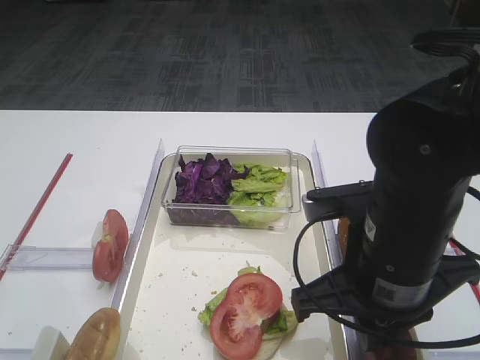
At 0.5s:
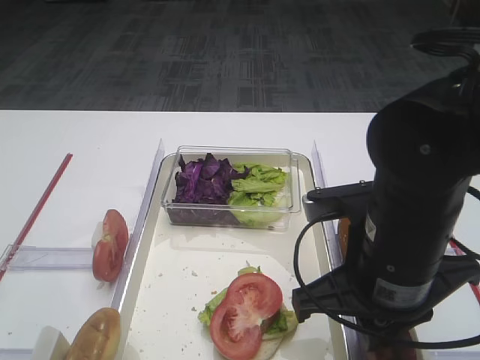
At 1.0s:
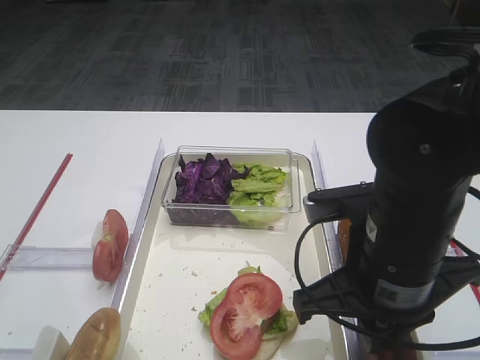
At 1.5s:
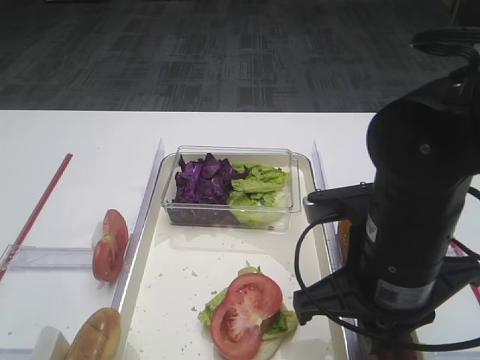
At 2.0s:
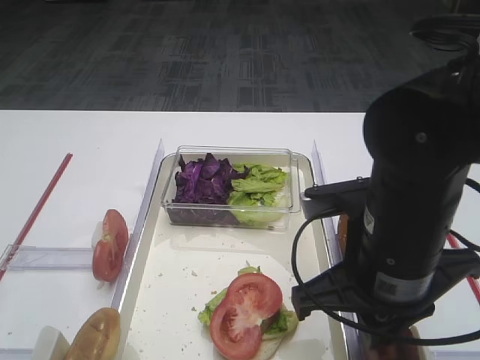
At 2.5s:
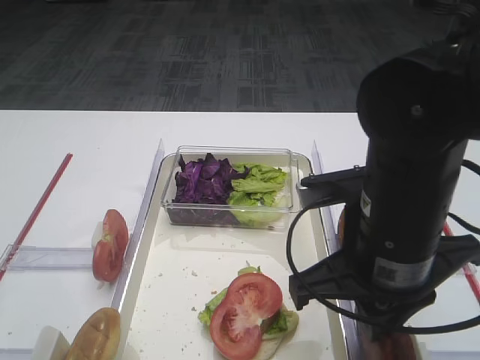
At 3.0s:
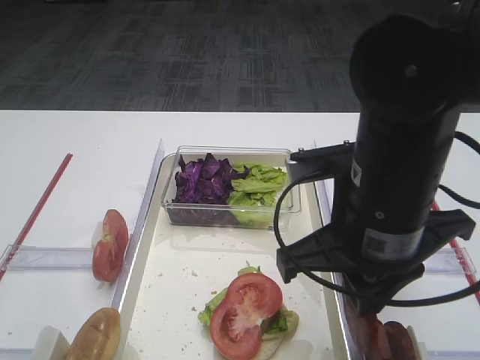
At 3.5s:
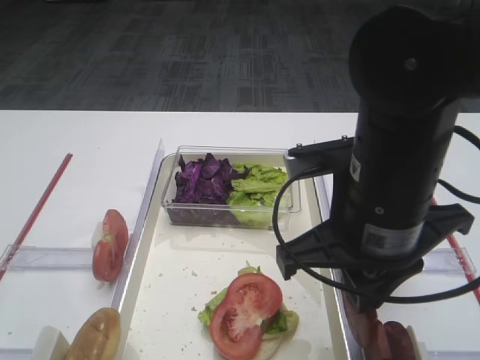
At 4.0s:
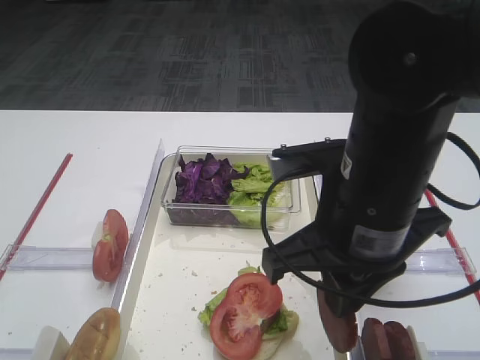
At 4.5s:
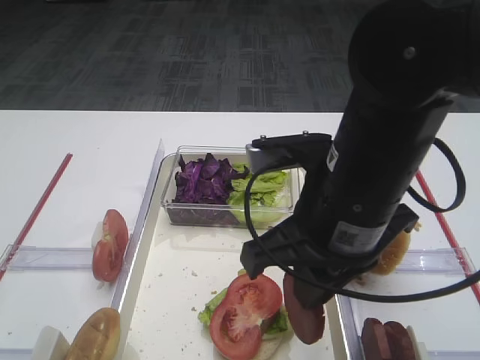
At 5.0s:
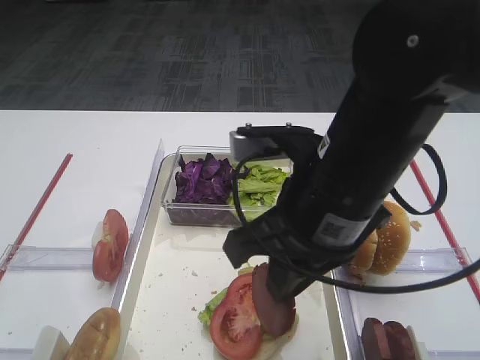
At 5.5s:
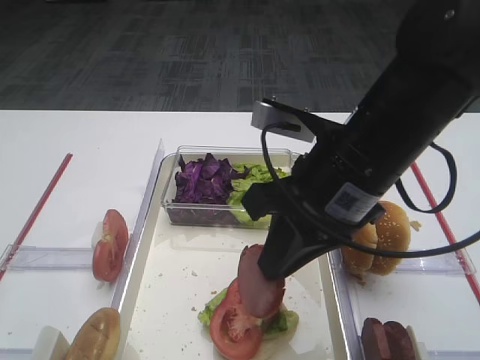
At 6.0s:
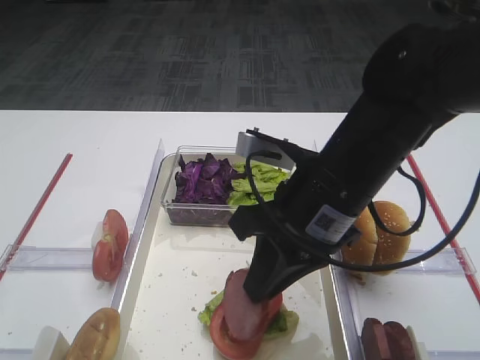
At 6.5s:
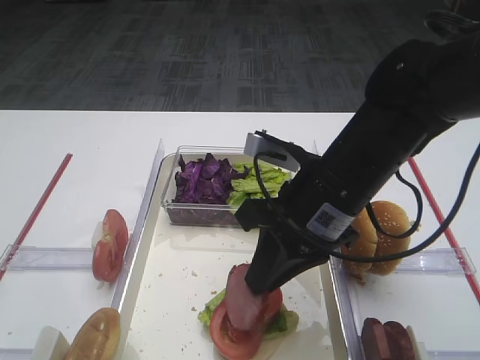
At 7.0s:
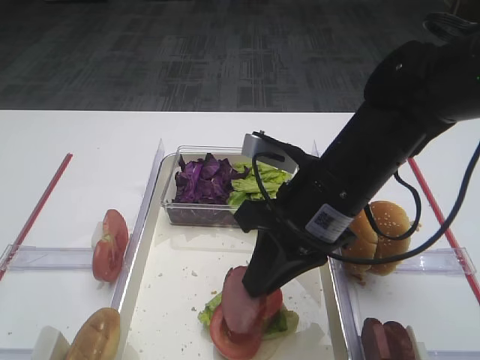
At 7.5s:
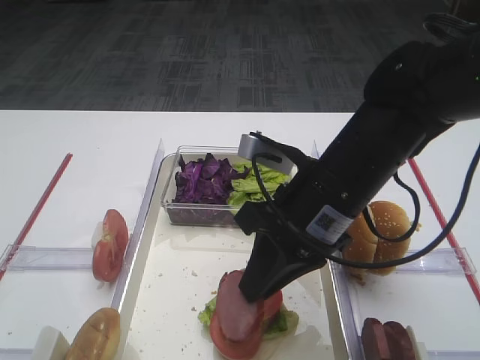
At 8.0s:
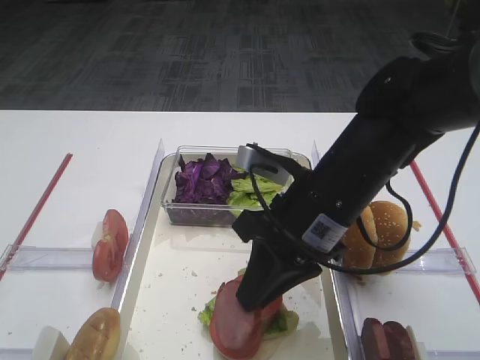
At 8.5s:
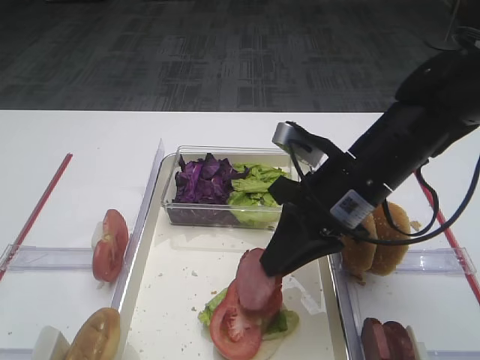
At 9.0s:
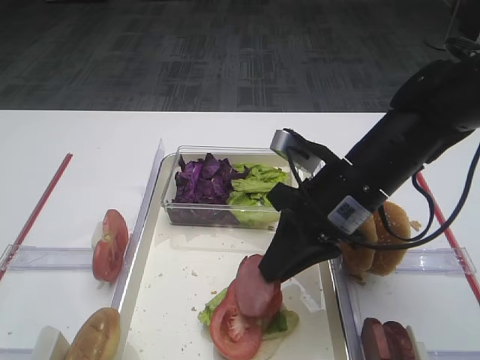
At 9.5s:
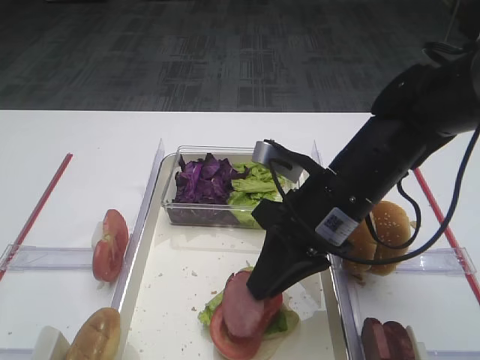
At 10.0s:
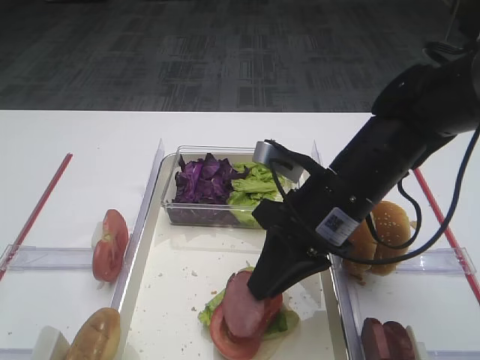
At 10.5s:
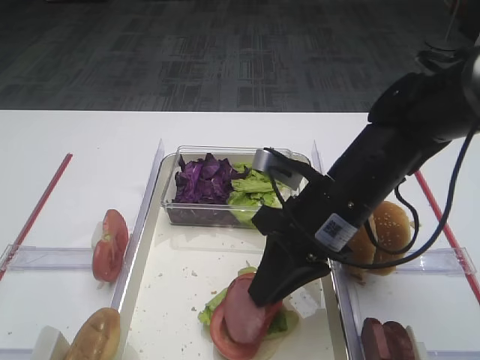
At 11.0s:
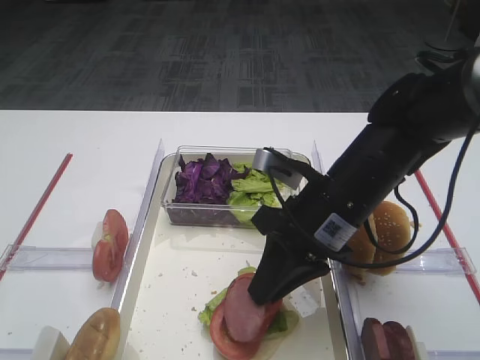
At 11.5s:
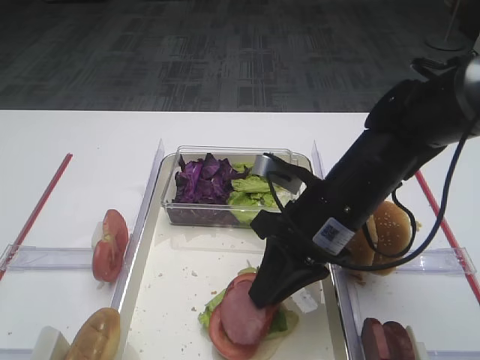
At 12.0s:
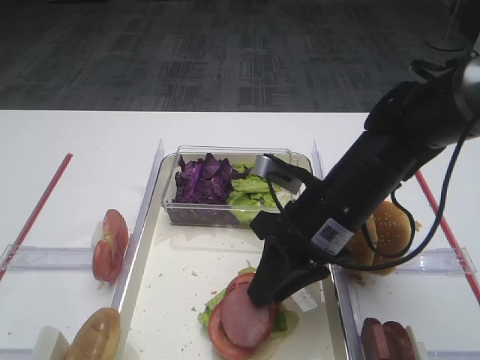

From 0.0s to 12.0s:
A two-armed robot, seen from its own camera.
Step, from 0.0s to 2.5s: Pick up the cutlet with the right gripper.
From 0.0s to 2.0s: Both grippers stay put.
From 2.0s to 4.0s: The grippers move only a little.
From 6.0s to 8.0s: There are only small adjustments of the grippers.
From 8.0s to 12.0s: The grippers make only small movements.

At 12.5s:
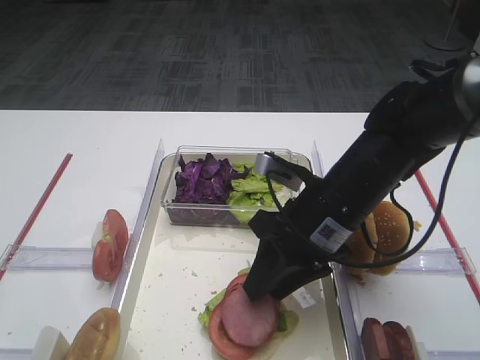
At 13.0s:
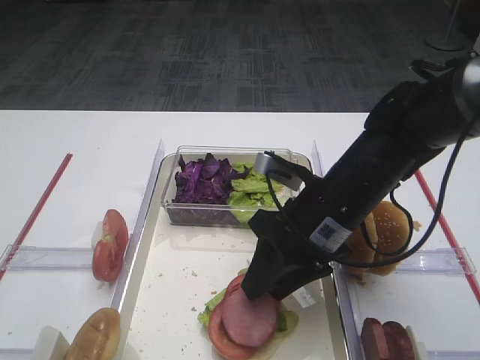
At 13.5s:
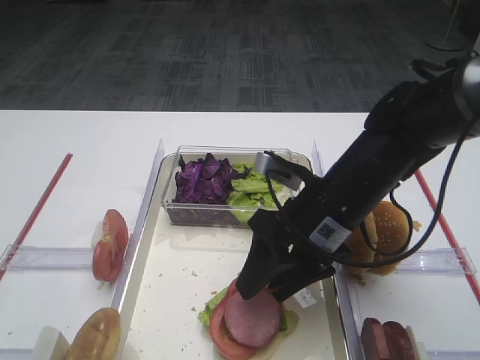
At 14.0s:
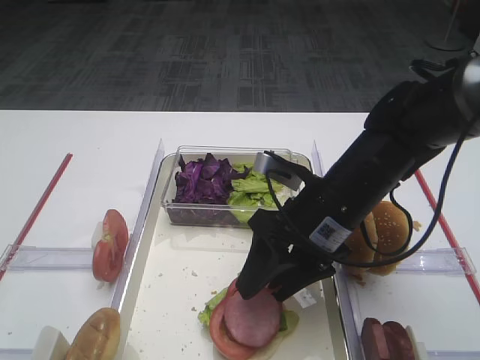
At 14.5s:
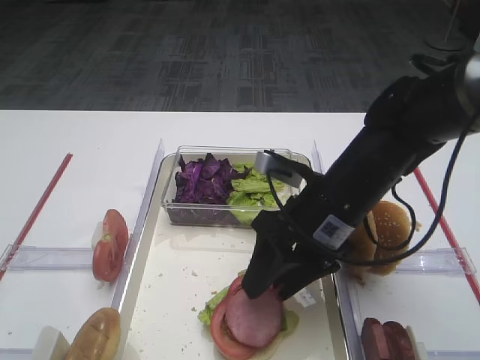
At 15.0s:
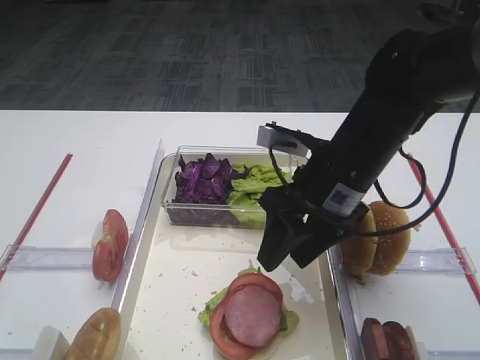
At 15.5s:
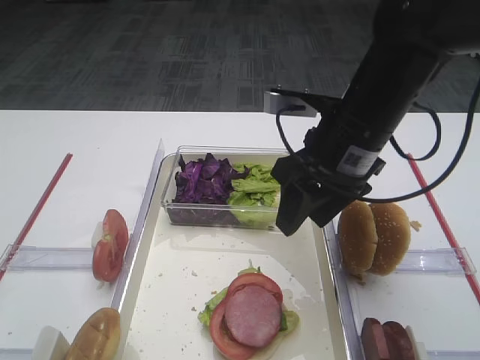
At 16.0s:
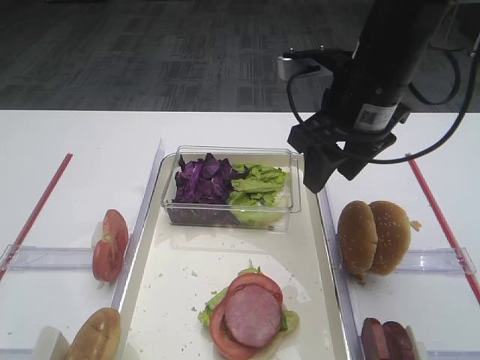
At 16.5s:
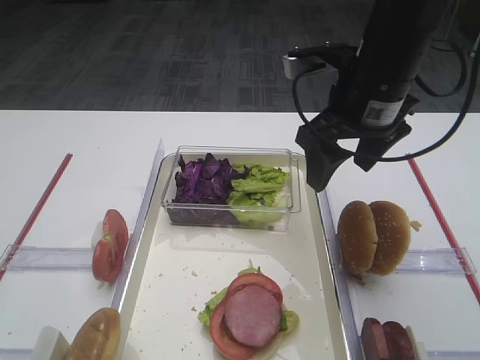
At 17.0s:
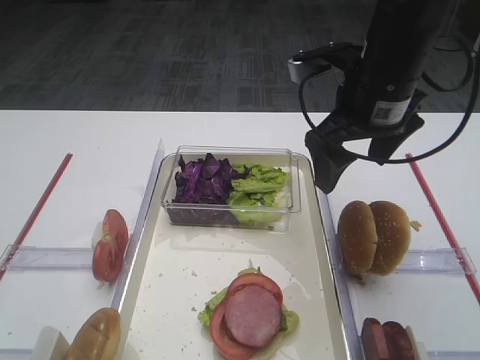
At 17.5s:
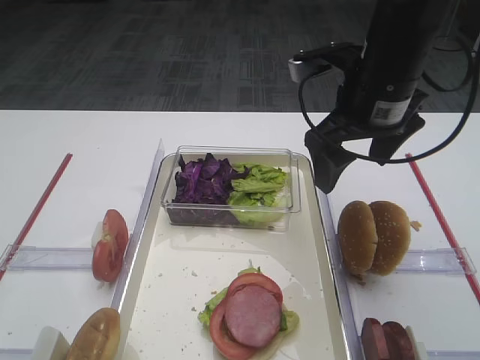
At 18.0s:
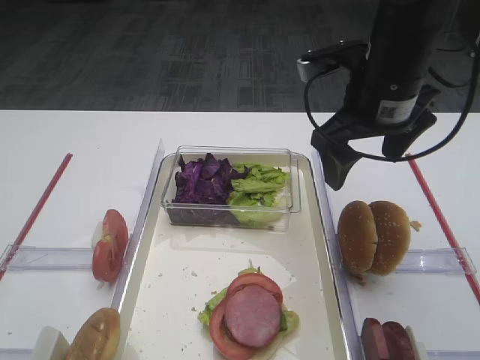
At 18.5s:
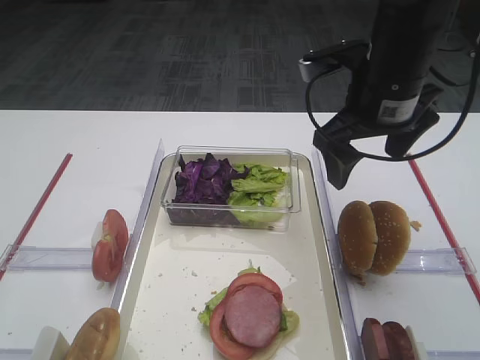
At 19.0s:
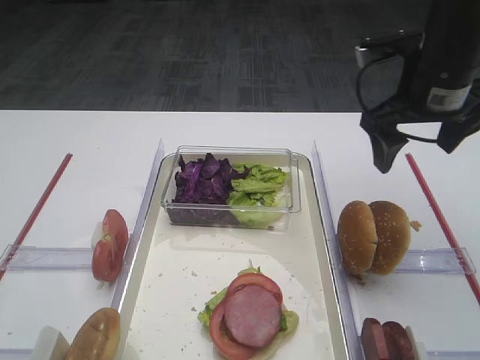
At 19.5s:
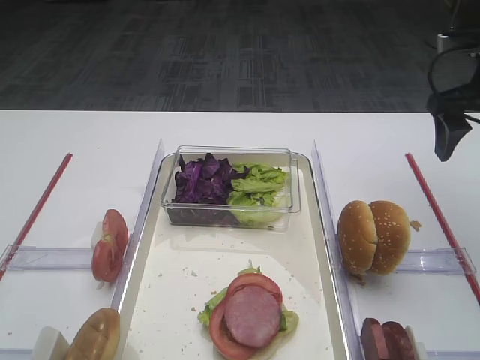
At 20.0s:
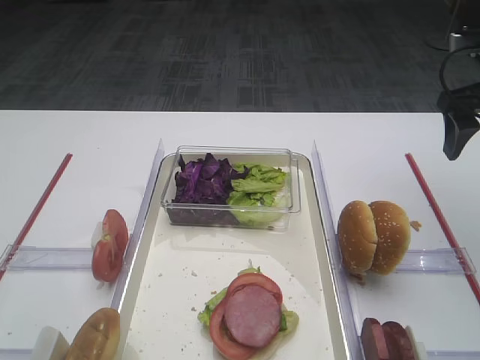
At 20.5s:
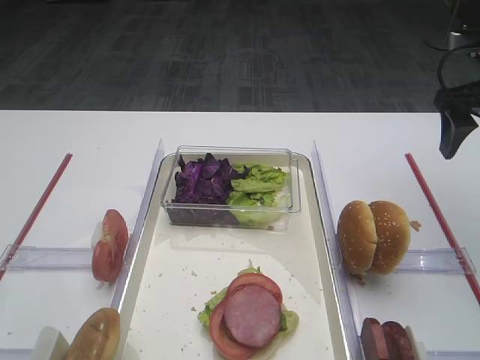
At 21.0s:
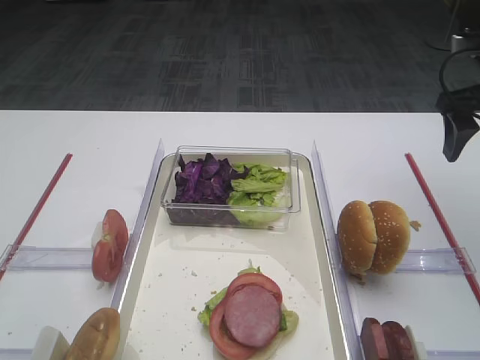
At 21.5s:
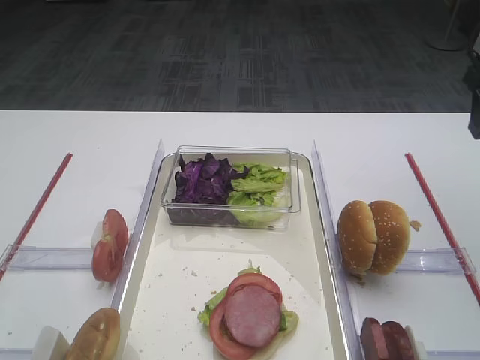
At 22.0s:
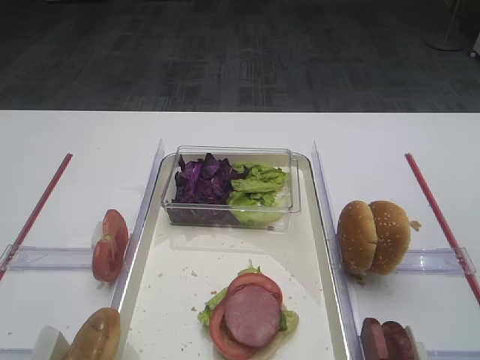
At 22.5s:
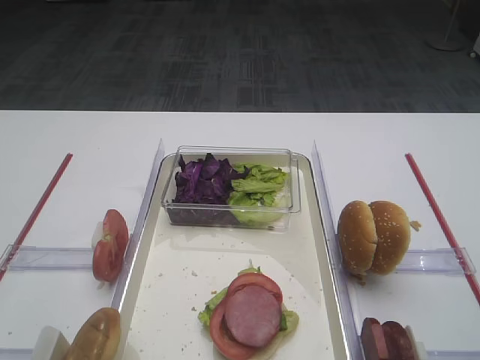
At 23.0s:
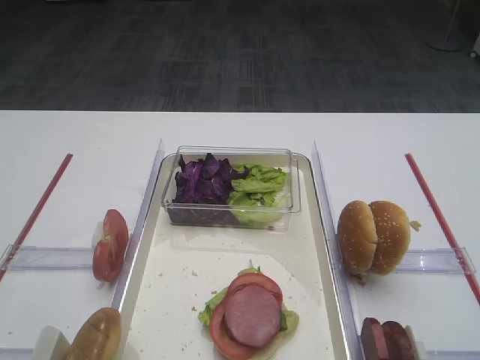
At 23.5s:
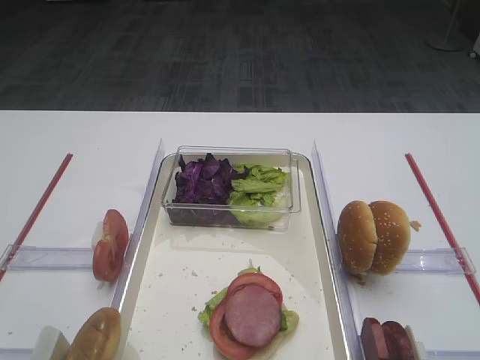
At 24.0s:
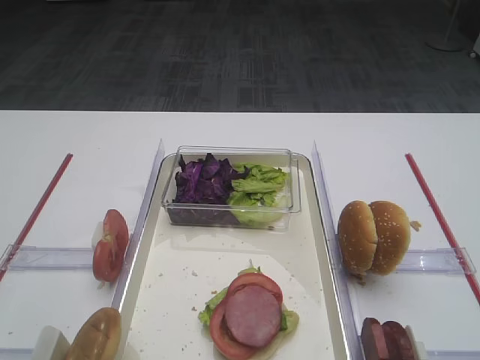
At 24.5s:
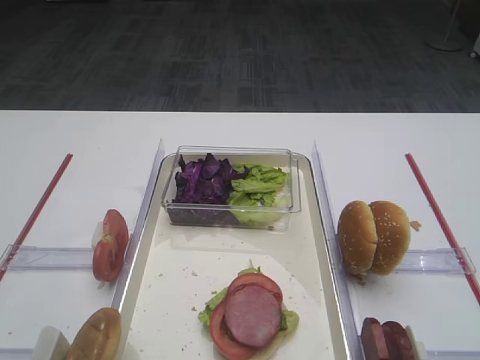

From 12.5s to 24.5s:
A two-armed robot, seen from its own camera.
Step, from 12.5s to 15.0s: Place the cutlet on the tomato slice with the right gripper.
From 12.5s to 14.5s: Both grippers stay put.
From 14.5s to 16.5s: The right gripper goes approximately 10 cm upward and forward.
From 16.5s to 18.5s: The grippers move only a little.
From 18.5s to 20.5s: The right gripper heads to the right, covering roughly 15 cm.
From 20.5s to 22.5s: The right gripper travels backward by approximately 20 cm.

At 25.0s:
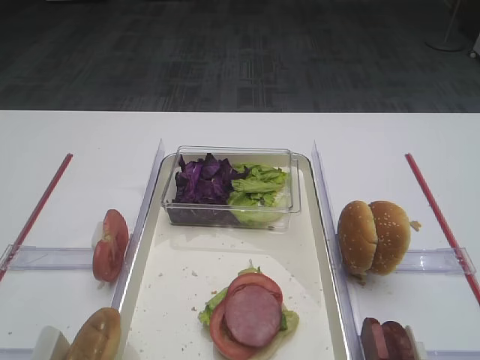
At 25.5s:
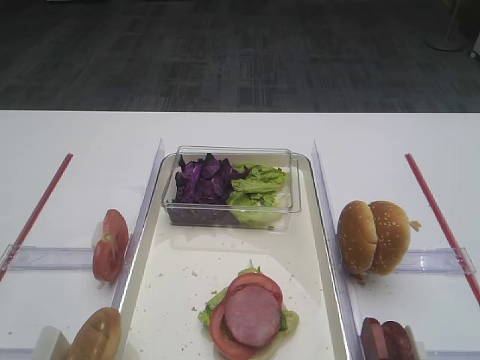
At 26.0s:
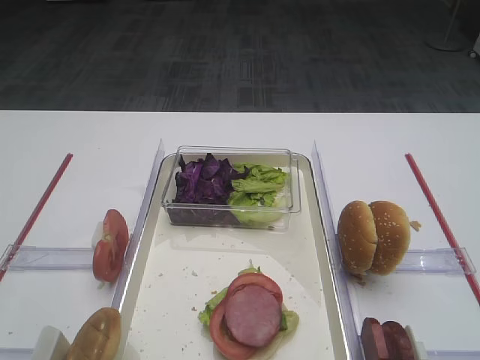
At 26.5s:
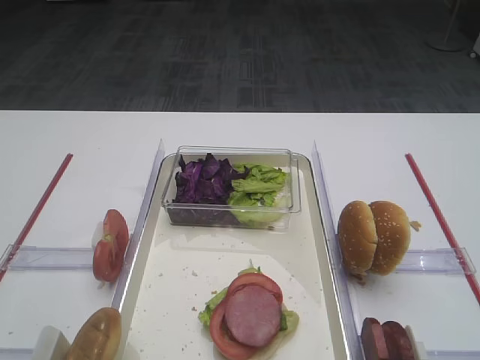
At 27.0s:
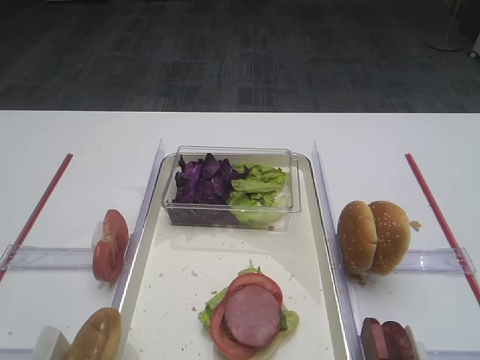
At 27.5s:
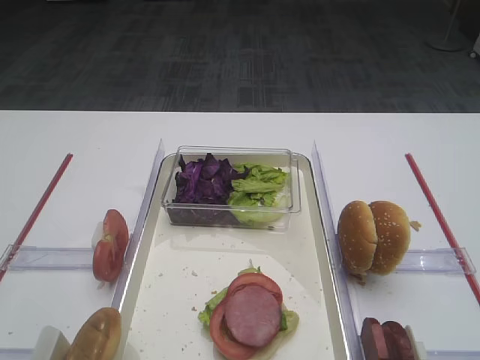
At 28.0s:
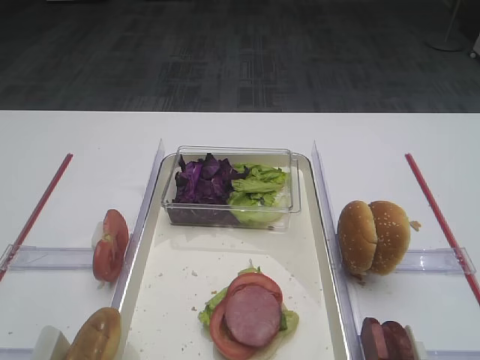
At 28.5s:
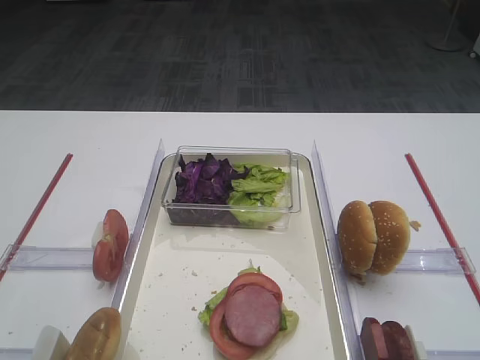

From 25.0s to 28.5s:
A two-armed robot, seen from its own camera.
From 27.0s to 28.5s: Both grippers stay about where they are.
